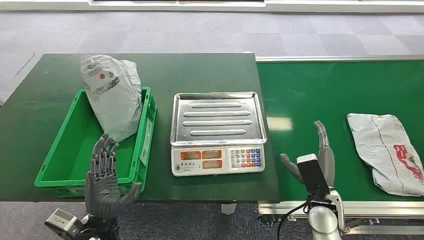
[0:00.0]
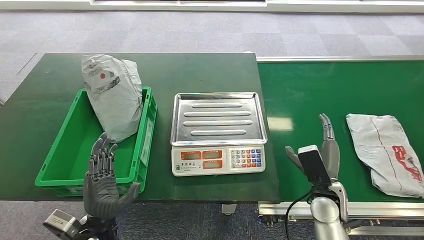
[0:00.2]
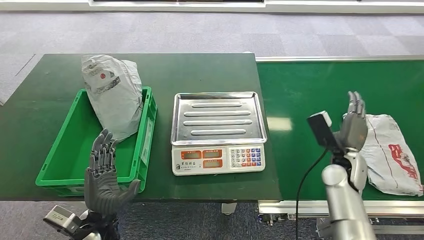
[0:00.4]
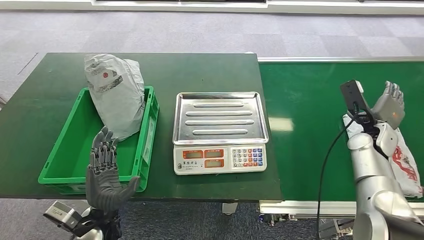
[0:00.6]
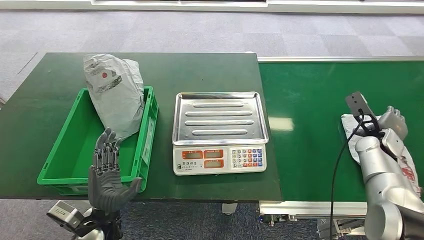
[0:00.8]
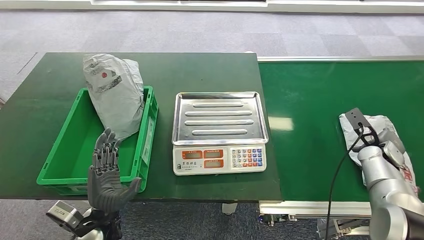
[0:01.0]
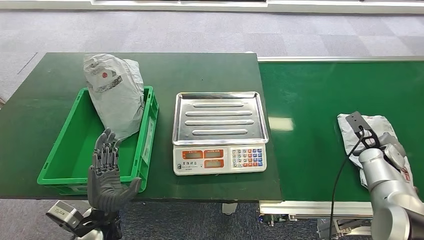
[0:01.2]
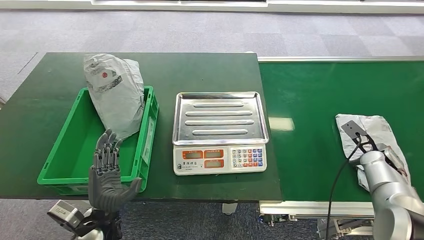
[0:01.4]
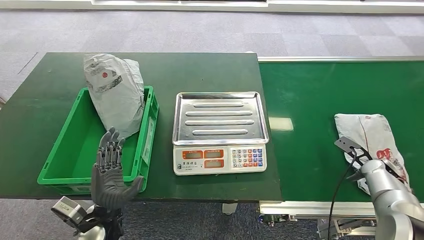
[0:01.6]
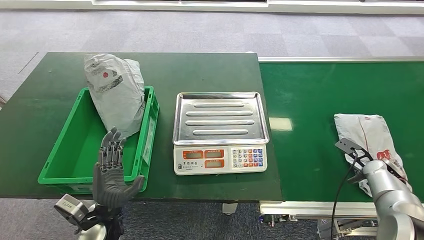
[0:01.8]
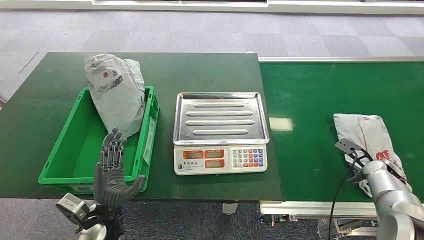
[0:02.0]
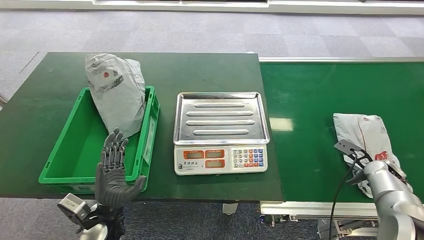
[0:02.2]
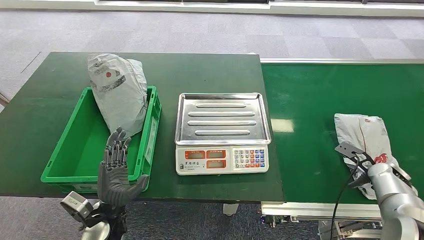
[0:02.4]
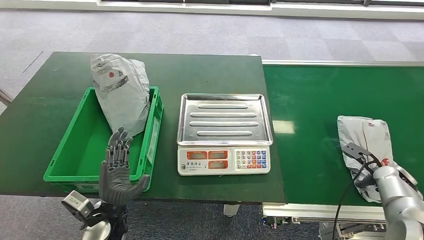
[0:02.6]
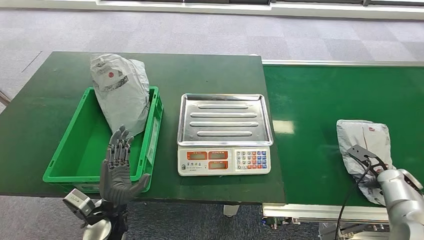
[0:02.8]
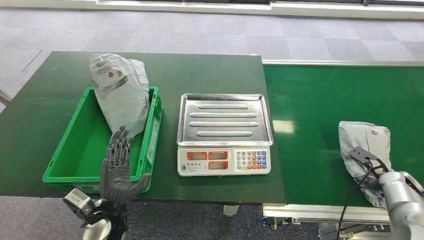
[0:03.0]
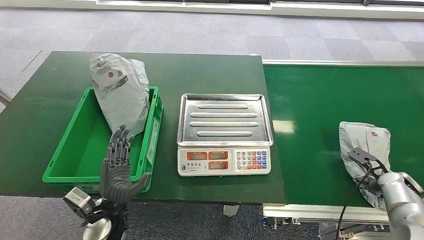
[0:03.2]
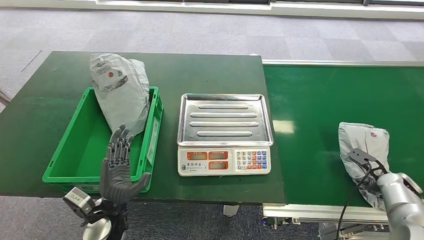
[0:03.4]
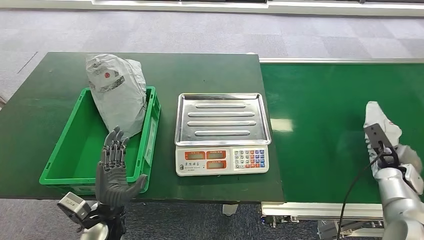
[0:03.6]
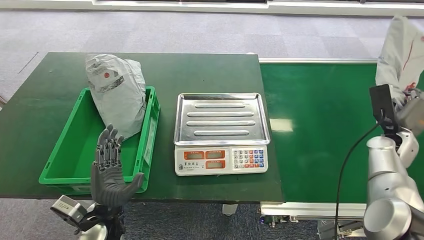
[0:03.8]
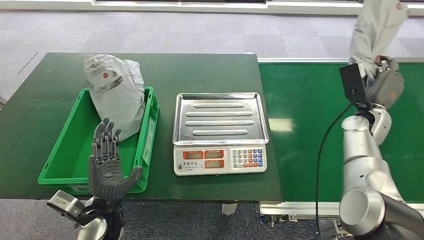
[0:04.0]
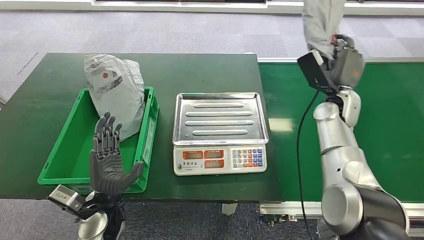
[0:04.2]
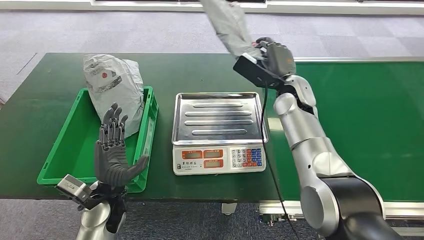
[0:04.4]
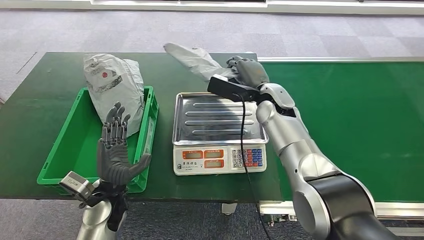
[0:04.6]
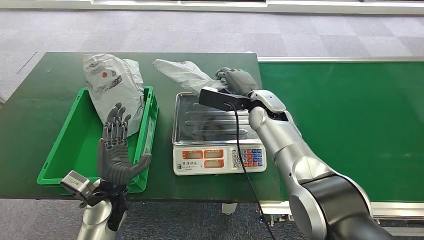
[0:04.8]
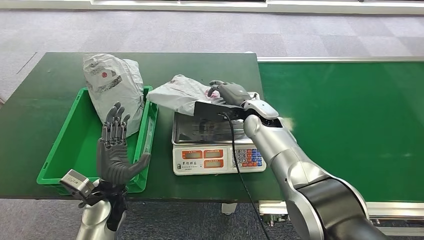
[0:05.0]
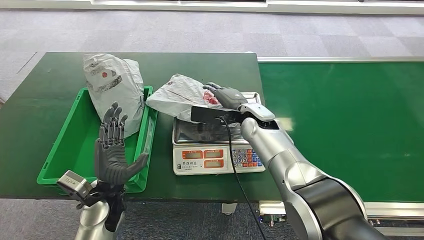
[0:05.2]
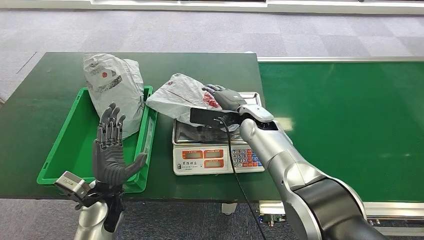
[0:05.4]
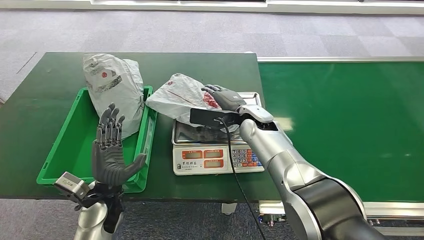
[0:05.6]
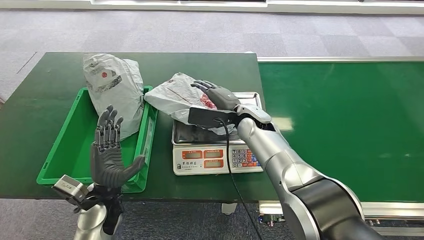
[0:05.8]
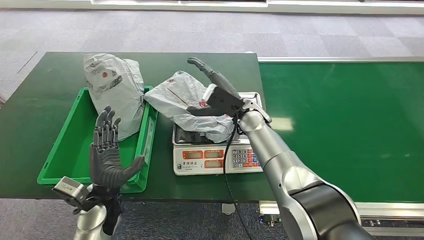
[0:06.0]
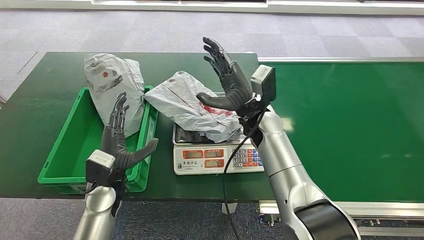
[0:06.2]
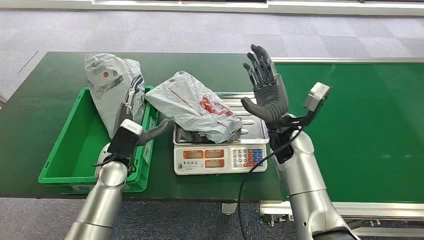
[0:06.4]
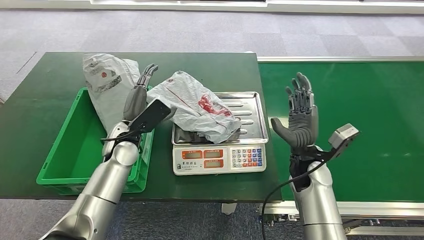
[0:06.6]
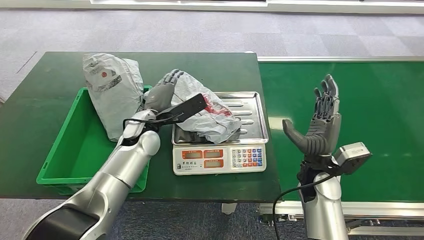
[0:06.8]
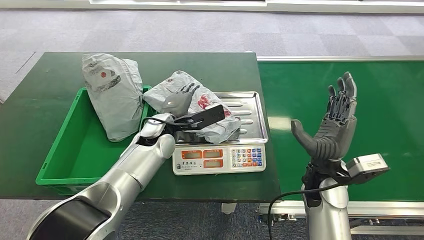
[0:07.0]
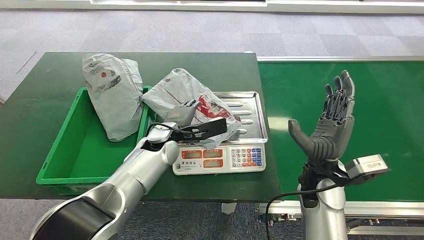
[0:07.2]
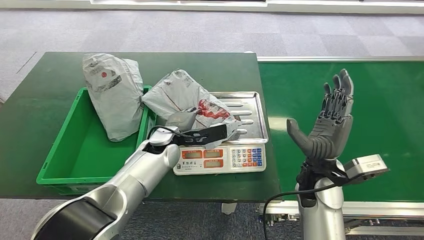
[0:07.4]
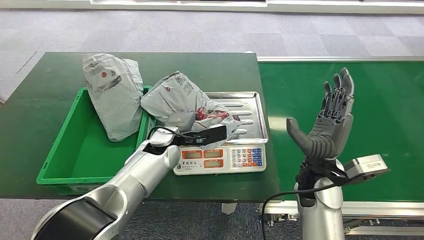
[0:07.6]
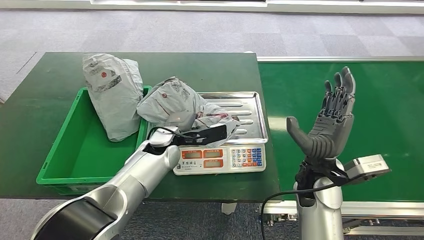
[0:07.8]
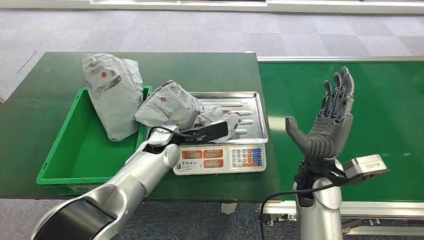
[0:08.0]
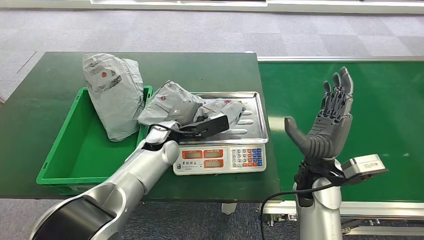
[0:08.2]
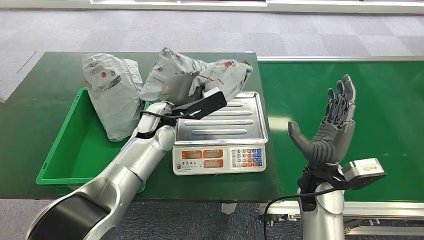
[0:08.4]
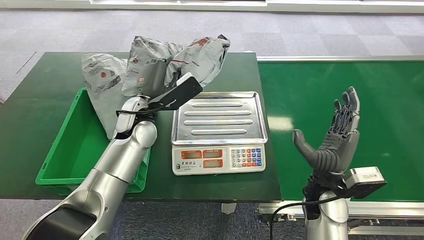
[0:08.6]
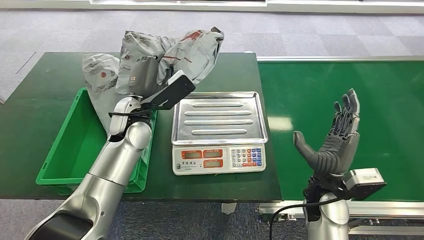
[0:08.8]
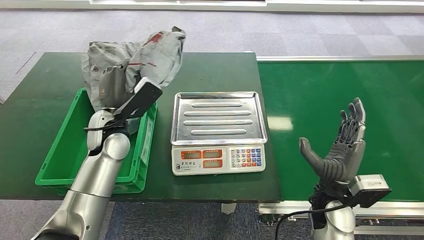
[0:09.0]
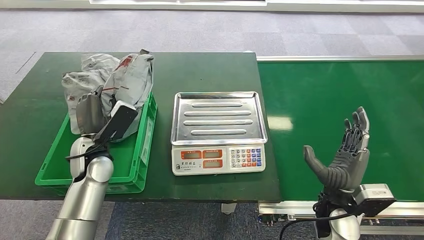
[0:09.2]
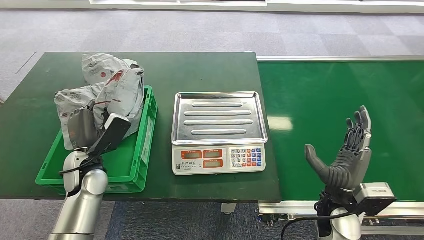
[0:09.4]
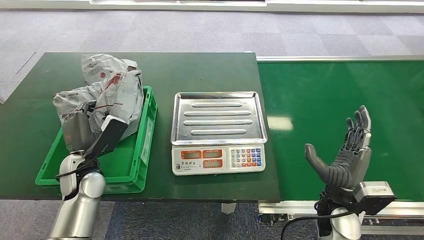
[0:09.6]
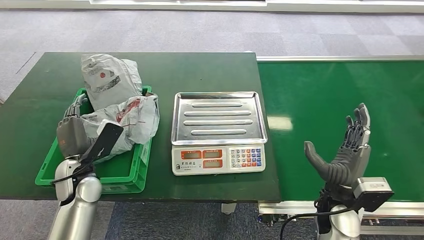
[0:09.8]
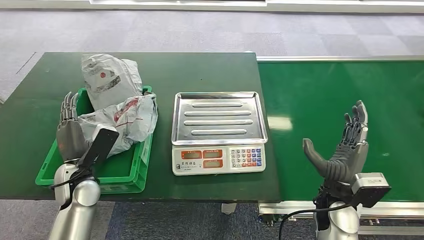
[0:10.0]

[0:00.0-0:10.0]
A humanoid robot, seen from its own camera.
Step, 0:00.0 to 0:04.2: Pick up the package from the conveyor belt.
Step, 0:04.4 to 0:05.8: Place the package onto the inbound machine.
Step, 0:06.0 to 0:08.6: Pick up the package from the inbound machine.
Step, 0:08.8 to 0:09.8: Place the package into the parcel locker.
0:08.6 to 0:10.0: The left hand is displaced to the left, downward and backward by approximately 20 cm.
